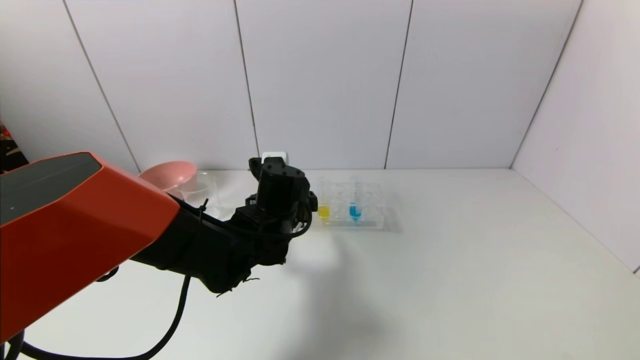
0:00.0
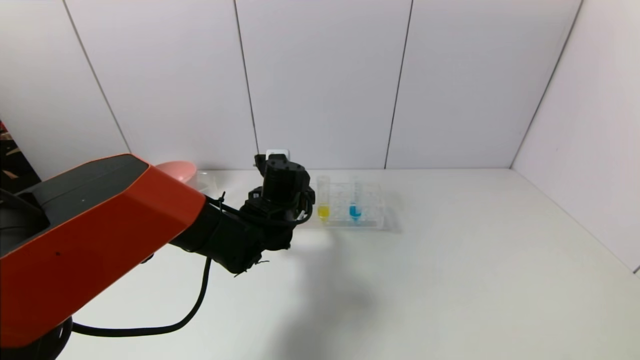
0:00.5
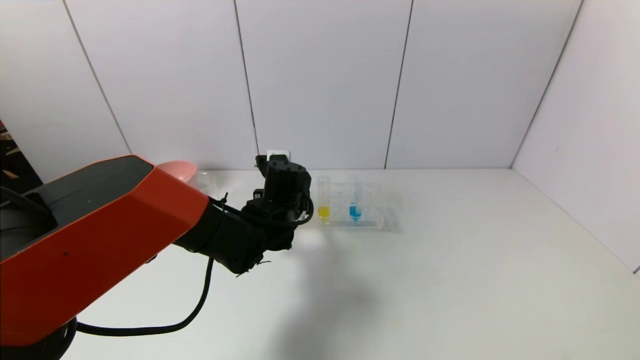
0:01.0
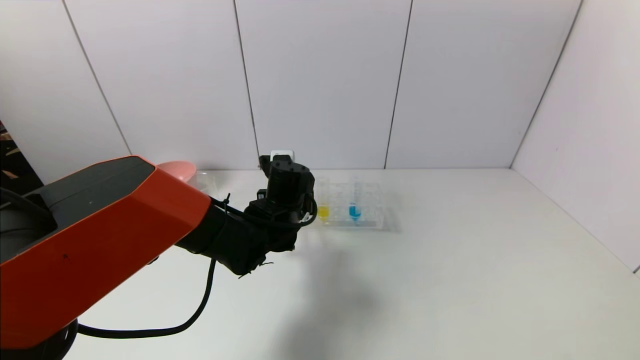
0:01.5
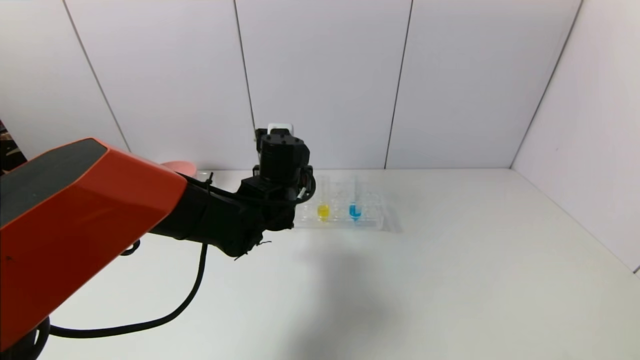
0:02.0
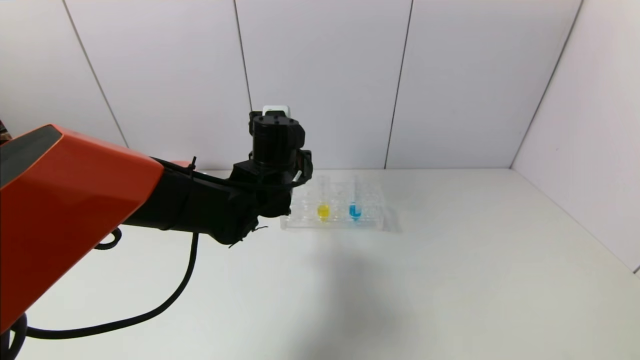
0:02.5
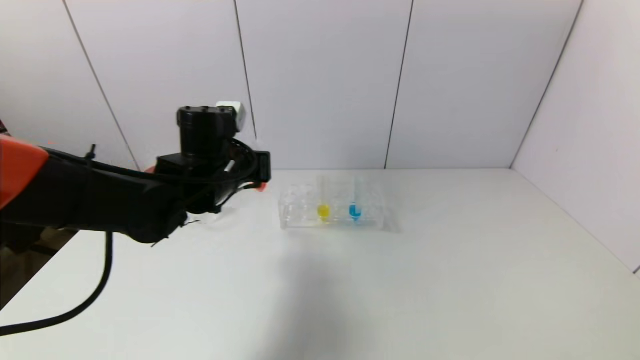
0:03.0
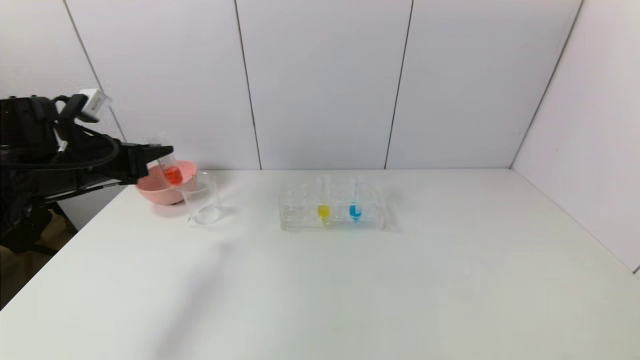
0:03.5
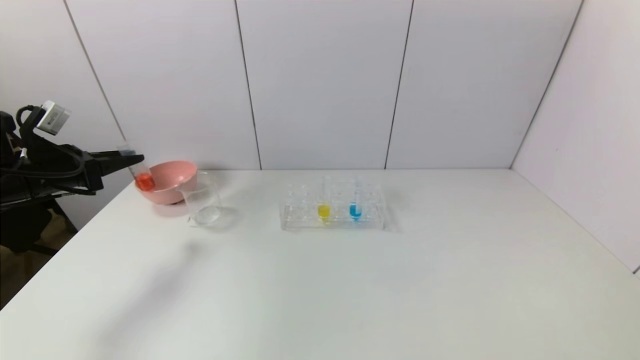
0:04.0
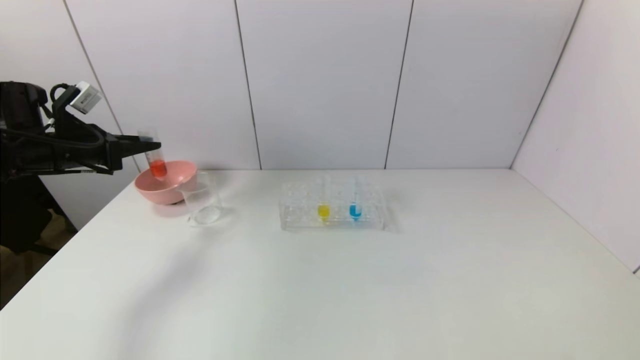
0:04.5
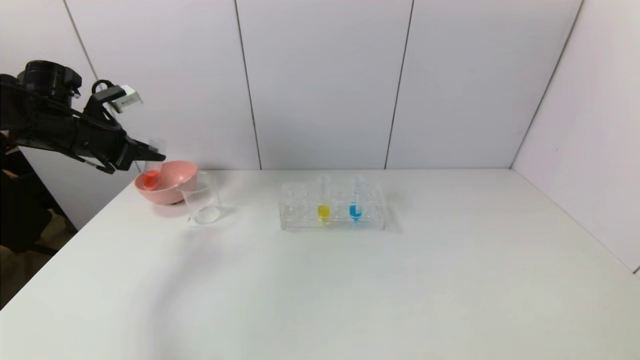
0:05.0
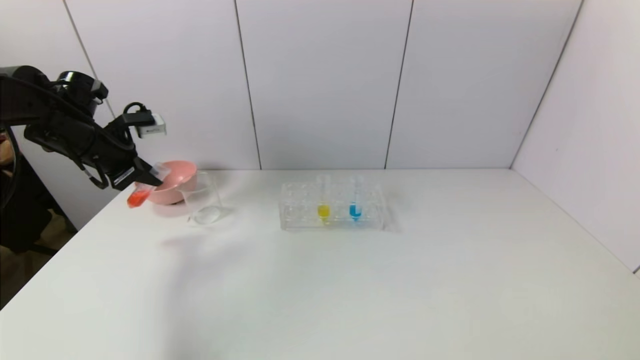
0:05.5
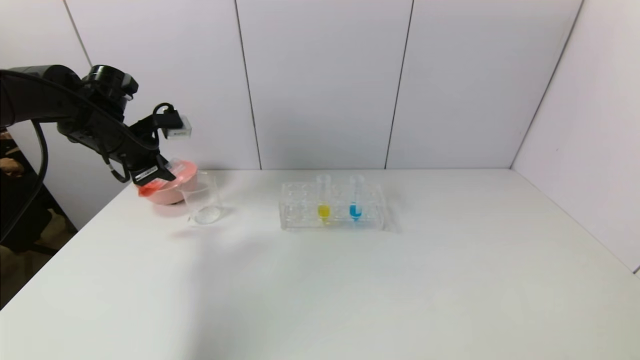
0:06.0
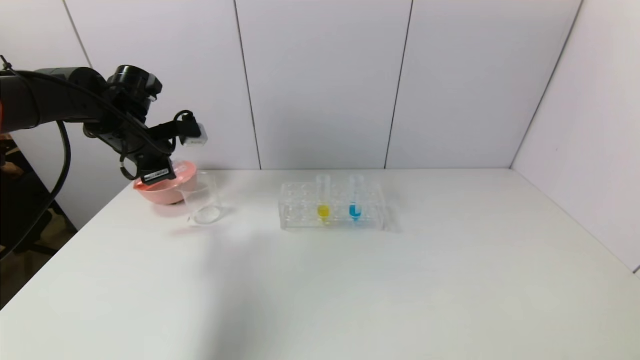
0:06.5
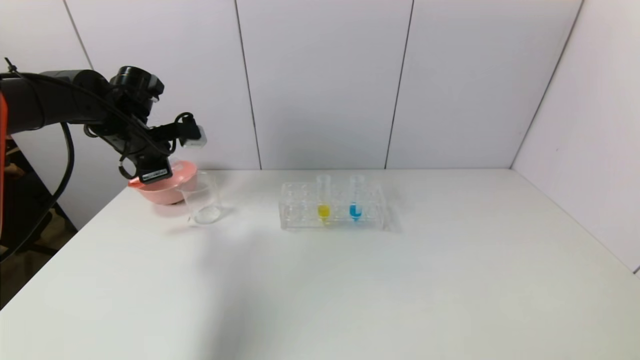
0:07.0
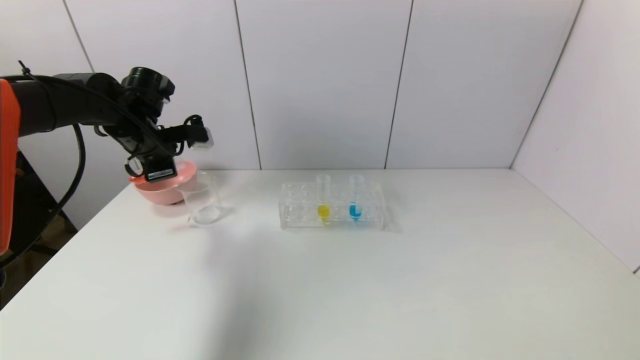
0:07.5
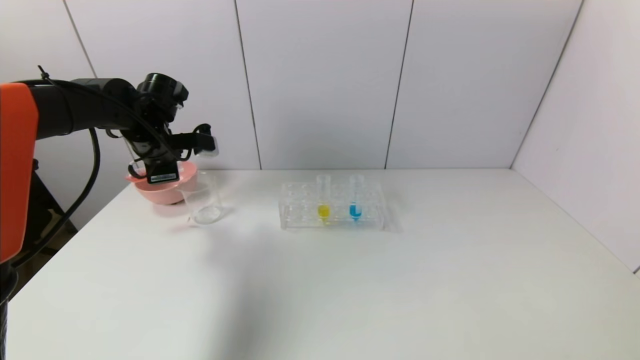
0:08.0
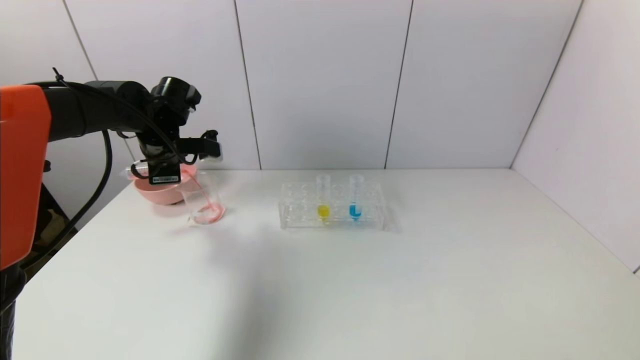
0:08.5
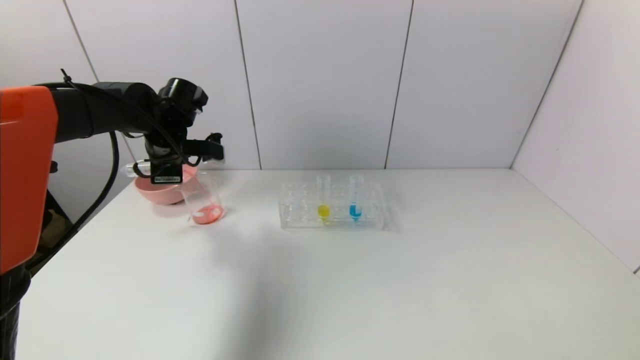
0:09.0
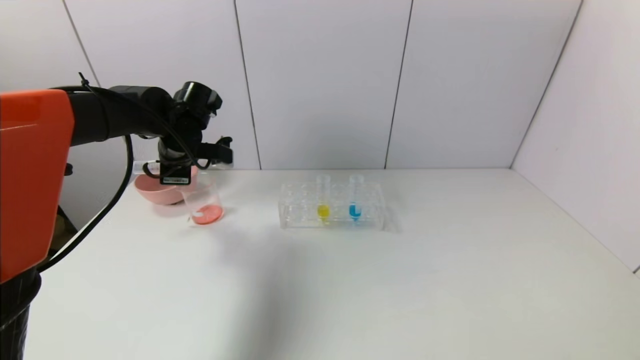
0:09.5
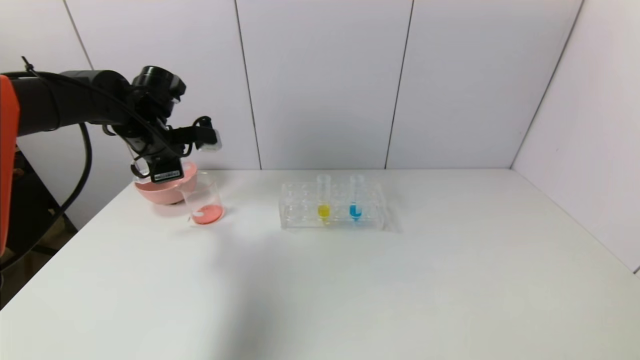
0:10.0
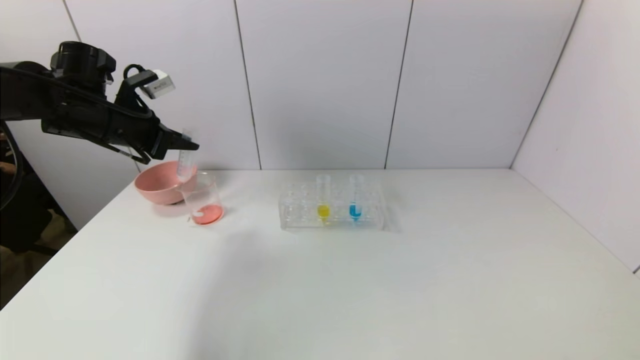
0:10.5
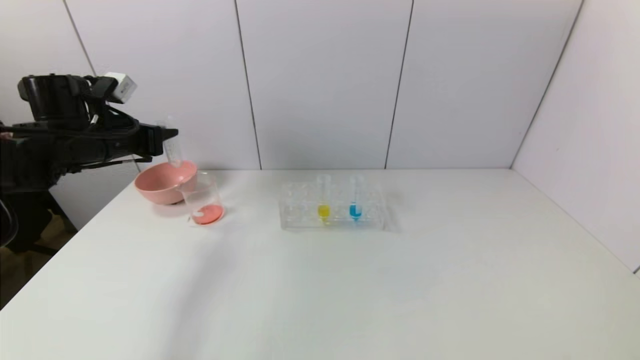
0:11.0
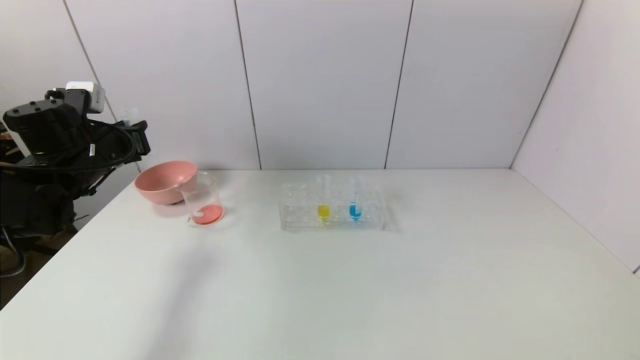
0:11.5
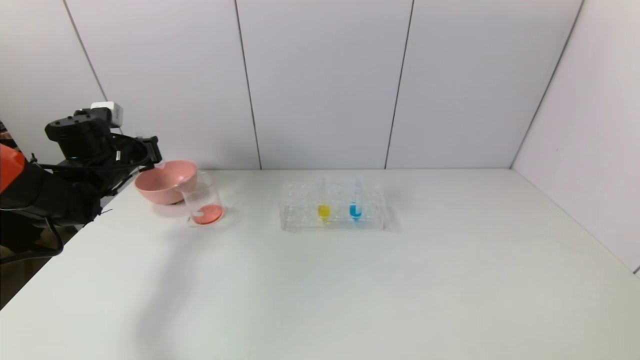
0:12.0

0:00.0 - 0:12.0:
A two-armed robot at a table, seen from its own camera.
Task of the whole recording: pick up the test tube with red pigment and the test tube with blue pigment by grippers and pour them into the container.
Step, 0:01.5 - 0:10.0: Pour the red reagent into the graduated cylinder with the left gripper.
0:00.0 - 0:02.0: The left gripper closes its fingers.
0:02.0 - 0:04.0: The left gripper shifts roughly 35 cm to the left.
0:04.0 - 0:06.0: The left gripper is displaced to the right and forward by roughly 10 cm.
0:06.0 - 0:08.0: The left gripper goes about 5 cm to the right.
0:08.0 - 0:10.0: The grippers move only a little.
0:10.0 - 0:12.0: The left gripper goes roughly 10 cm to the left and downward.

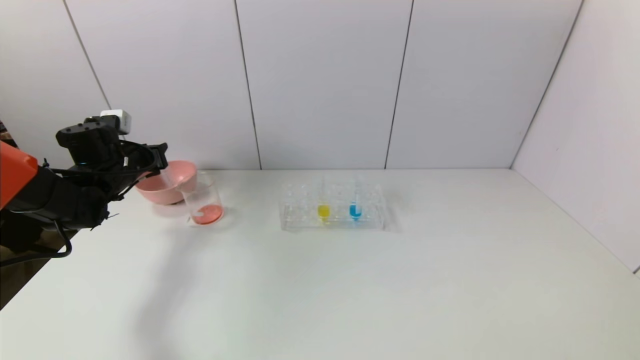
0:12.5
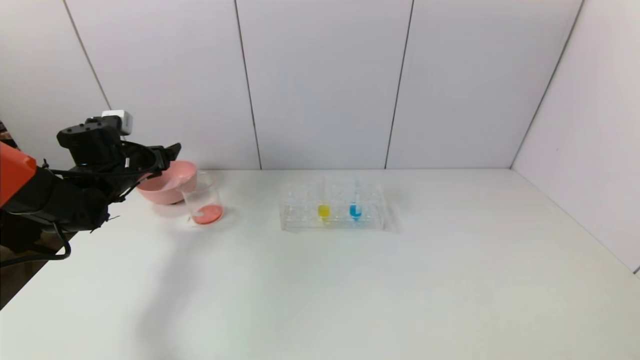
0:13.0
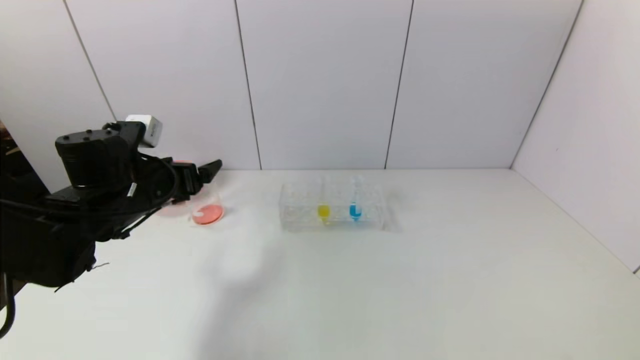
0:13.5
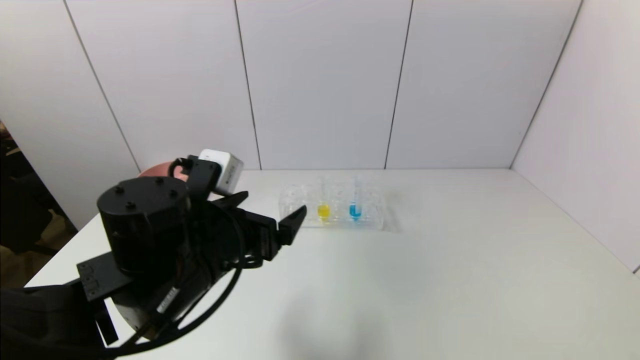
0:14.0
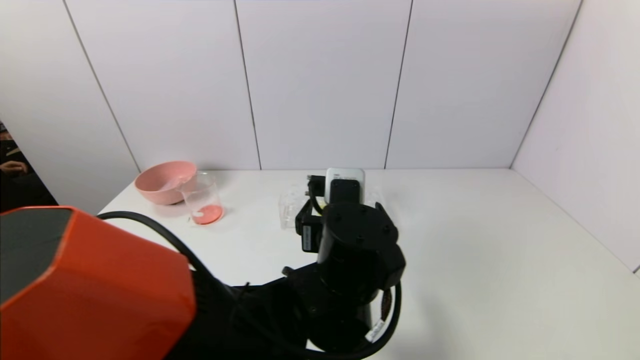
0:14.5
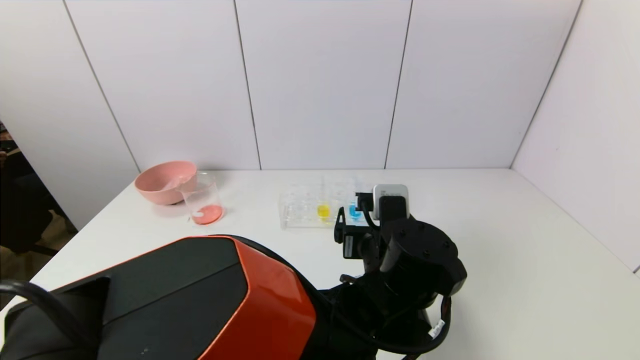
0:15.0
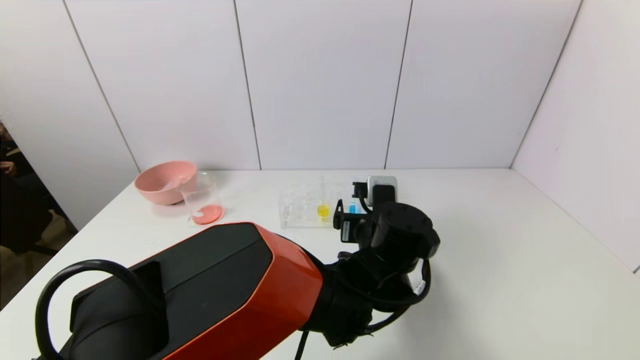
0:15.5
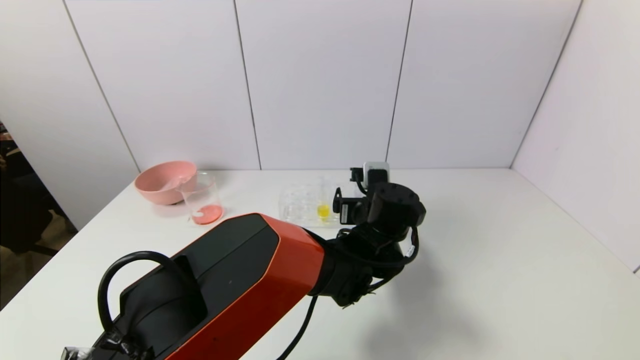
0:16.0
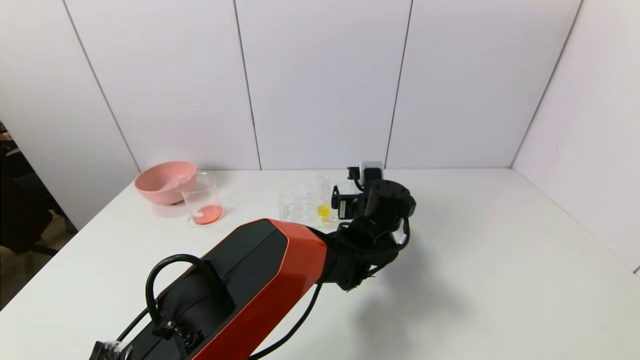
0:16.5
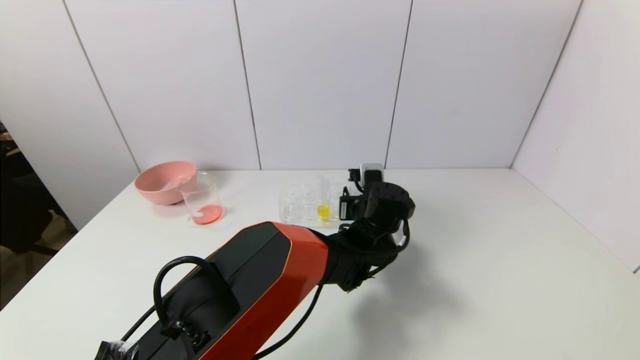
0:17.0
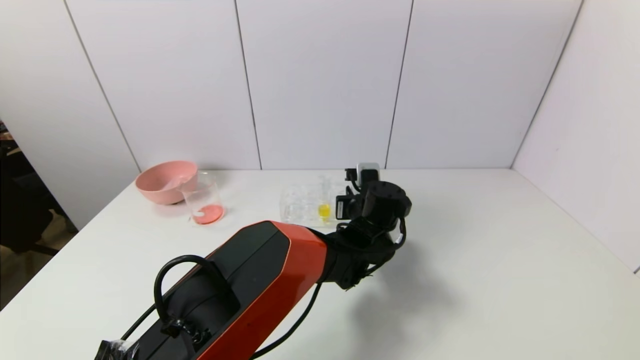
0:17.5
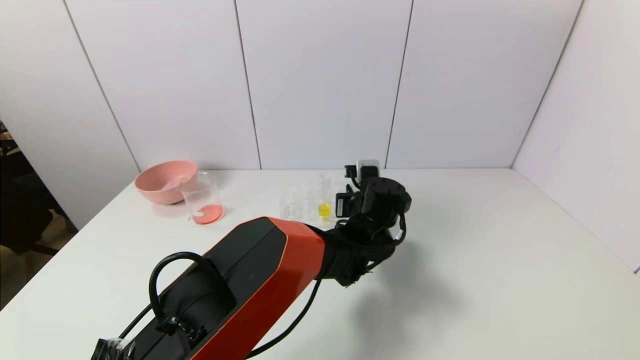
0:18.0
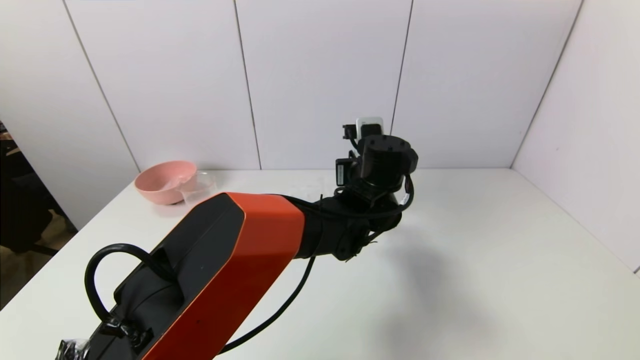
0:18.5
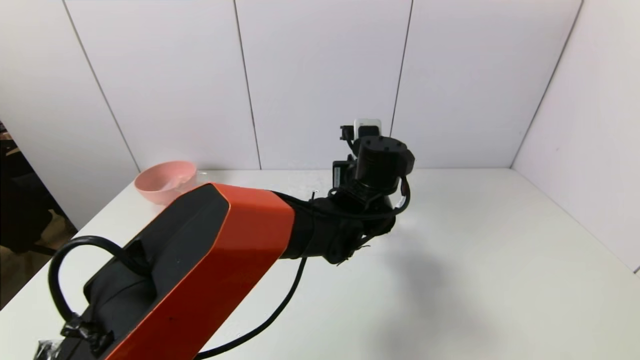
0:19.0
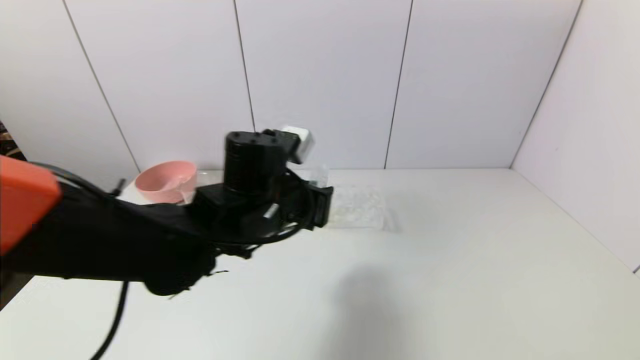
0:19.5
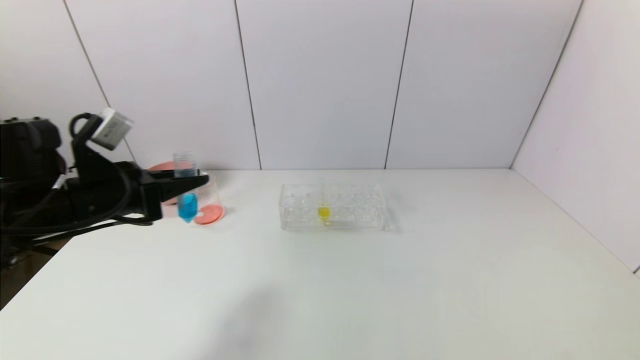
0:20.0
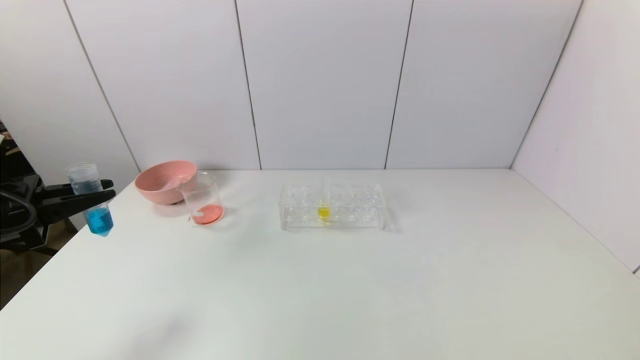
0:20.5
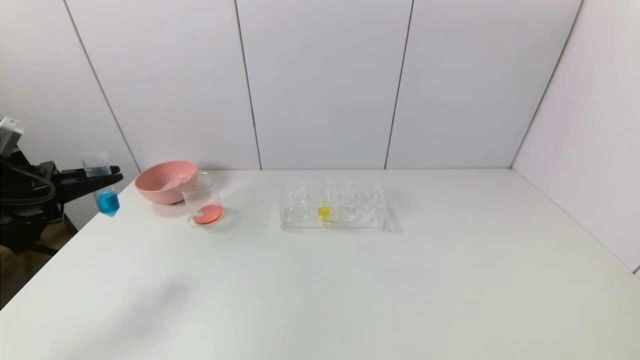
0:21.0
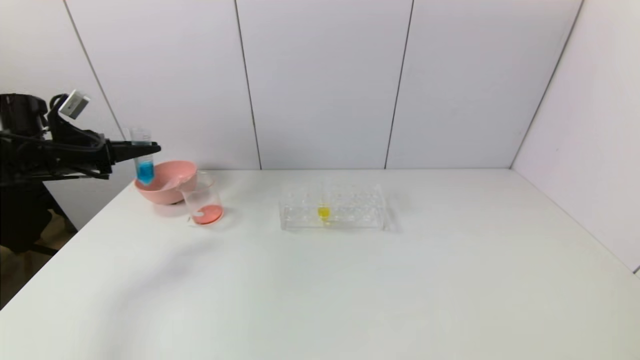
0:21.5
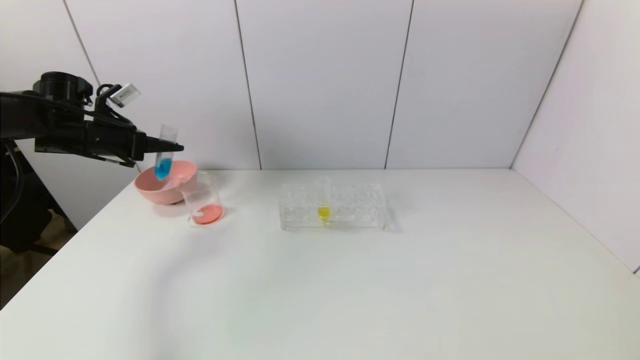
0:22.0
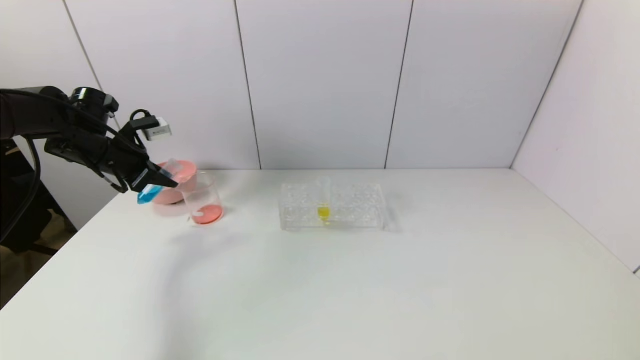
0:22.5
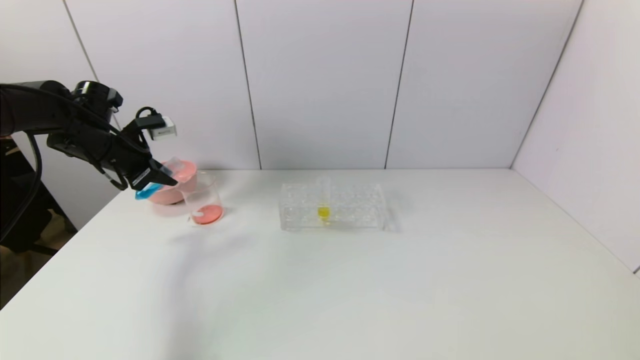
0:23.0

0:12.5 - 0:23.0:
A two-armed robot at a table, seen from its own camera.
Task of the whole recording: pick up the test tube with red pigment and the test tube with blue pigment by grippers and pour them into the container.
Step, 0:13.0 - 0:17.0: Grasp the blue reagent with the left gripper.
0:12.5 - 0:14.5: The left gripper shifts approximately 40 cm to the right and backward, and opens.
0:14.5 - 0:16.5: The left gripper heads forward, to the right and downward, covering about 20 cm.
0:16.5 - 0:19.0: The left gripper travels upward by about 10 cm, and closes its fingers.
0:19.0 - 0:21.0: The left gripper moves to the left, approximately 50 cm.
0:21.0 - 0:23.0: The left gripper shifts roughly 15 cm forward and to the right.
